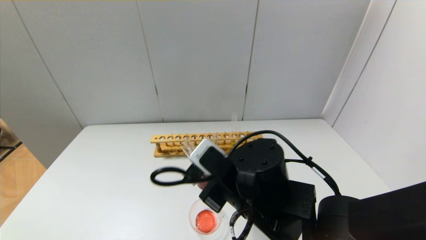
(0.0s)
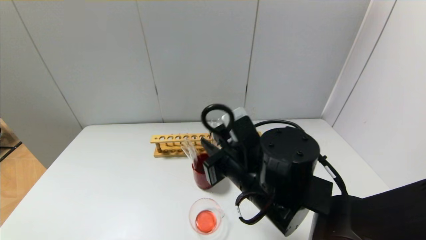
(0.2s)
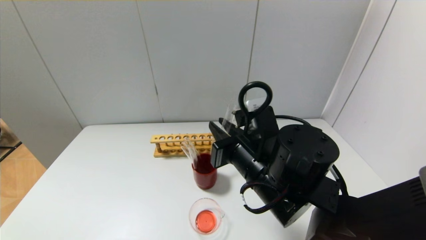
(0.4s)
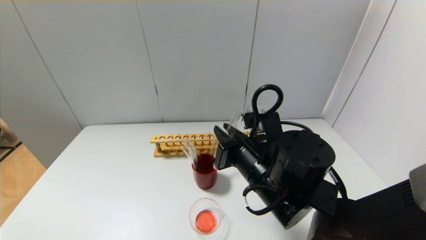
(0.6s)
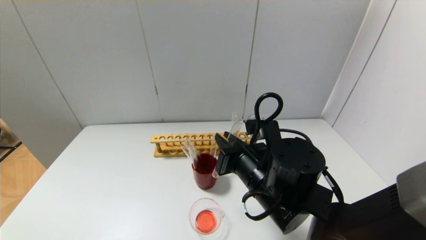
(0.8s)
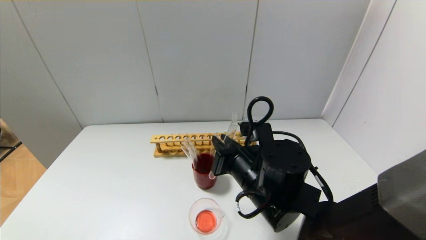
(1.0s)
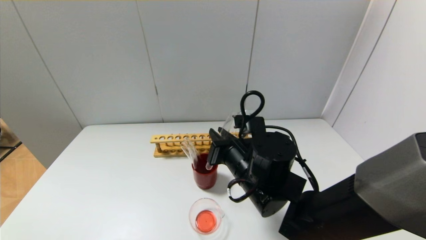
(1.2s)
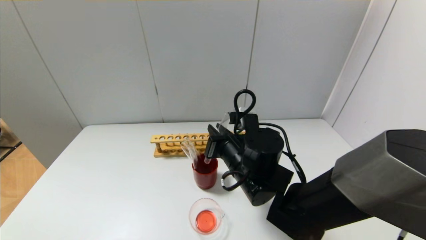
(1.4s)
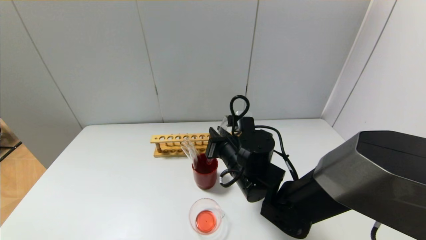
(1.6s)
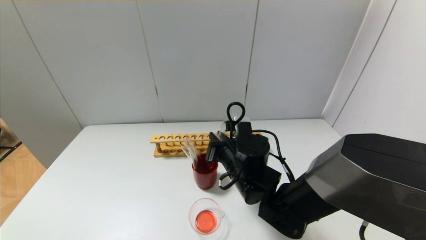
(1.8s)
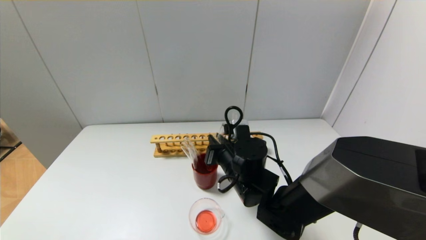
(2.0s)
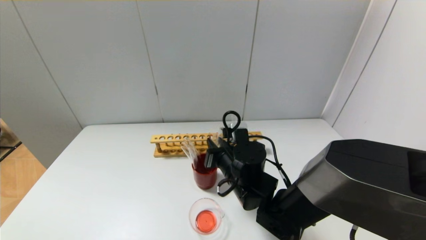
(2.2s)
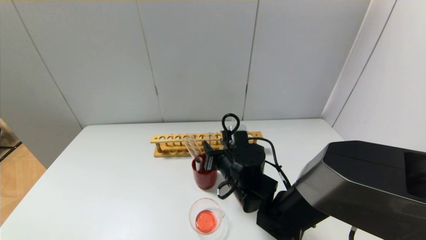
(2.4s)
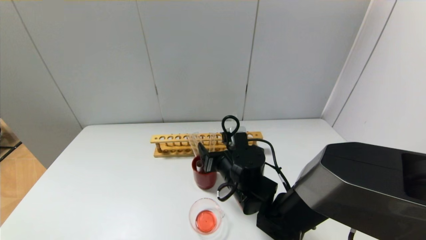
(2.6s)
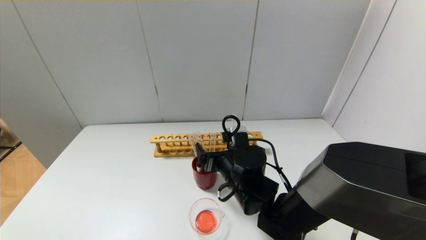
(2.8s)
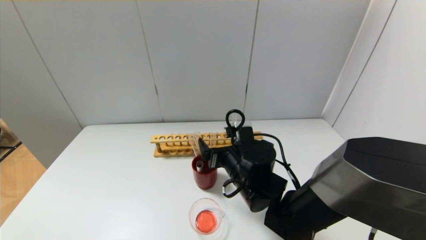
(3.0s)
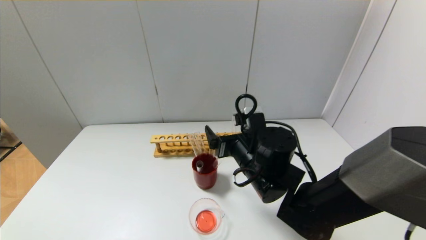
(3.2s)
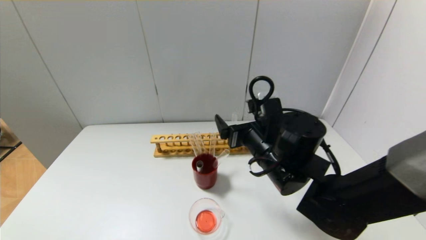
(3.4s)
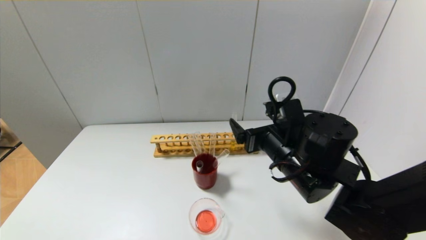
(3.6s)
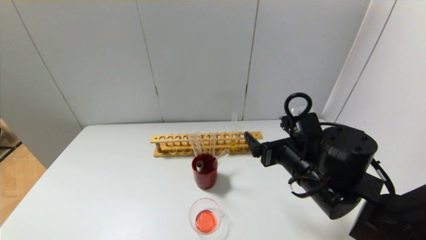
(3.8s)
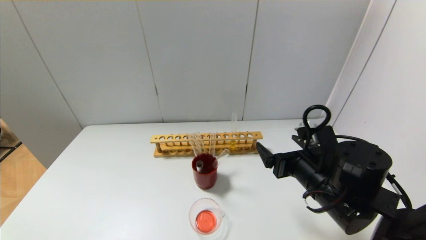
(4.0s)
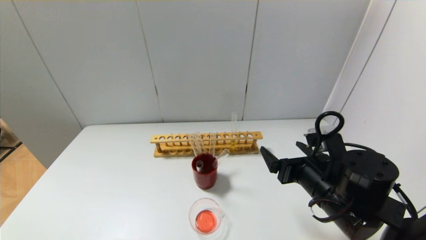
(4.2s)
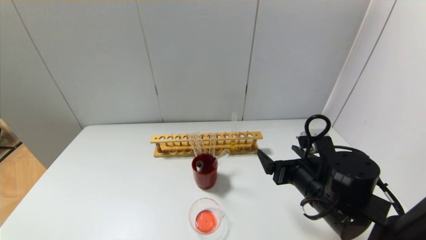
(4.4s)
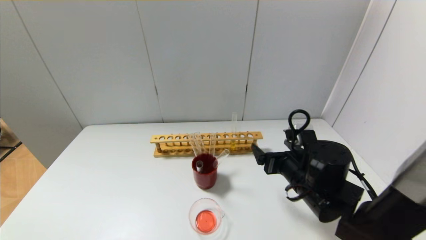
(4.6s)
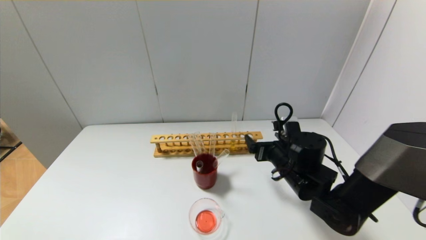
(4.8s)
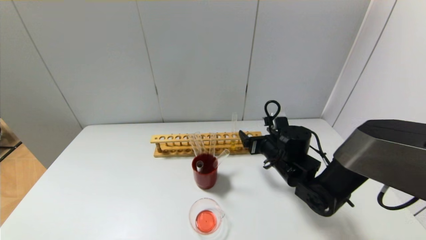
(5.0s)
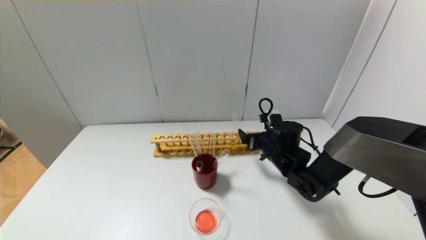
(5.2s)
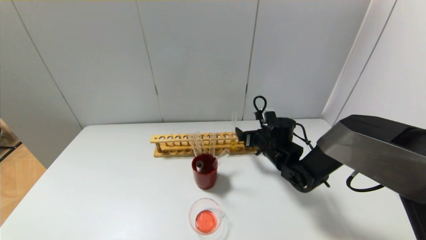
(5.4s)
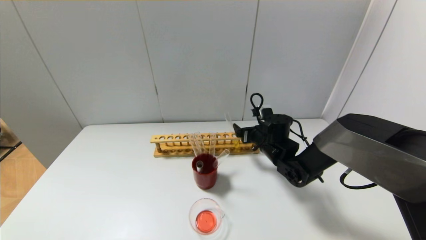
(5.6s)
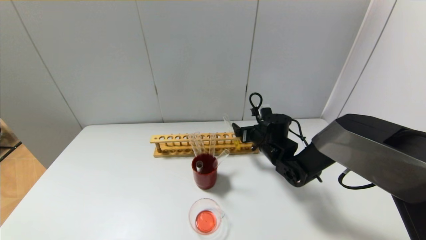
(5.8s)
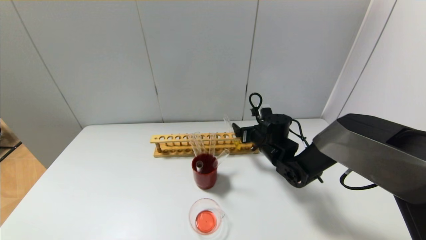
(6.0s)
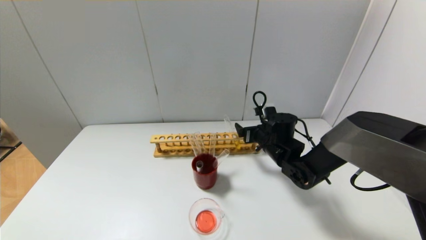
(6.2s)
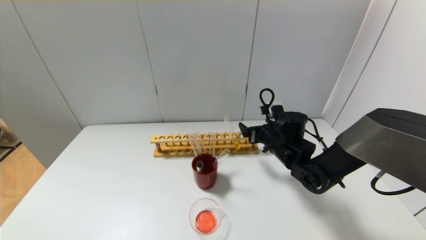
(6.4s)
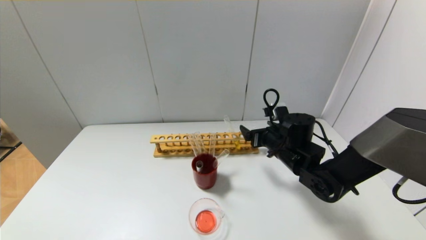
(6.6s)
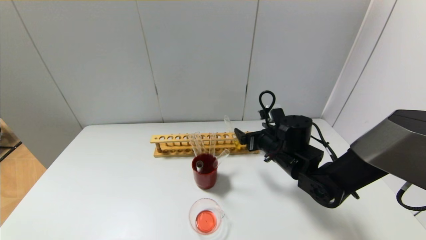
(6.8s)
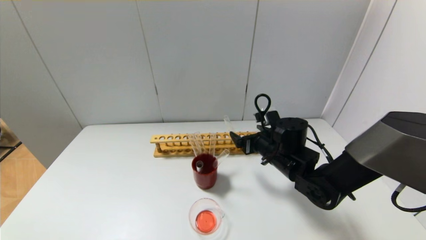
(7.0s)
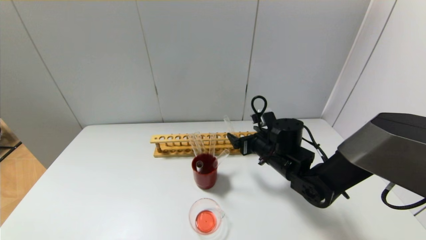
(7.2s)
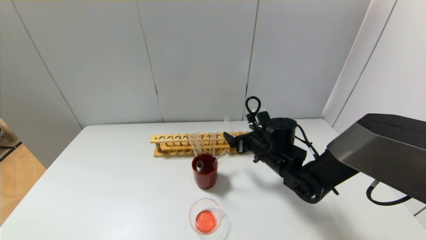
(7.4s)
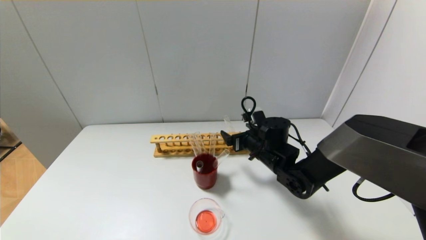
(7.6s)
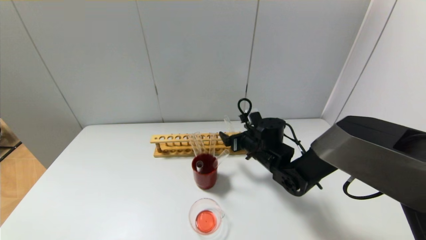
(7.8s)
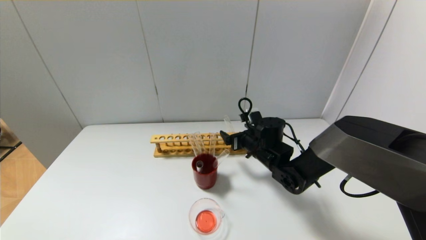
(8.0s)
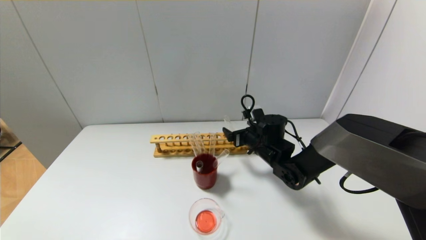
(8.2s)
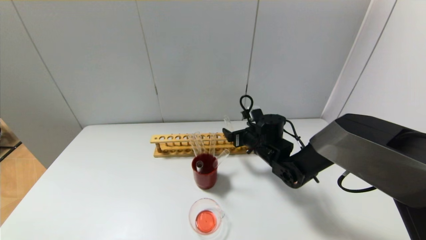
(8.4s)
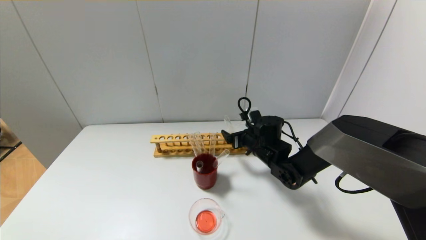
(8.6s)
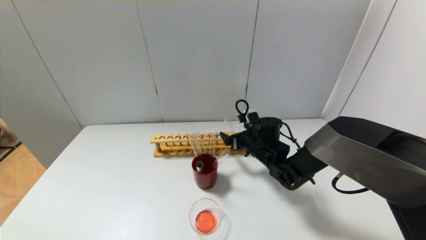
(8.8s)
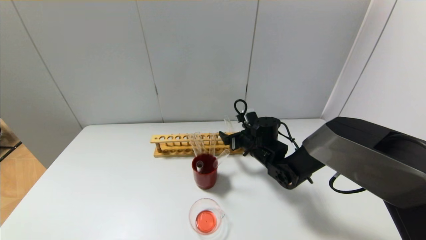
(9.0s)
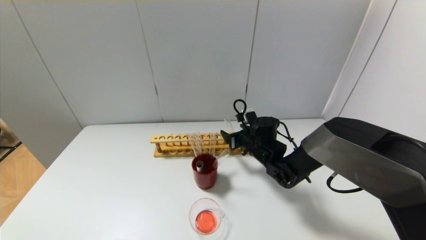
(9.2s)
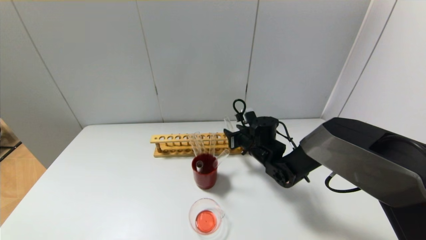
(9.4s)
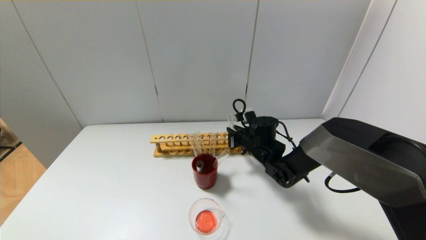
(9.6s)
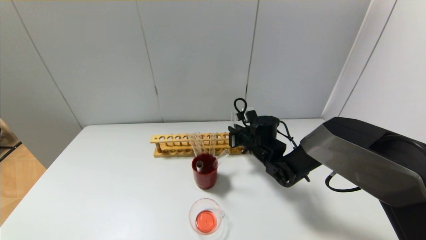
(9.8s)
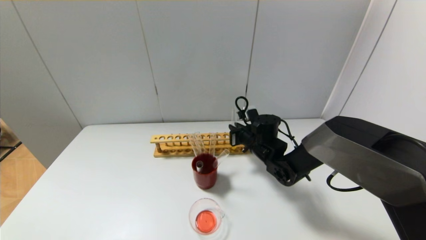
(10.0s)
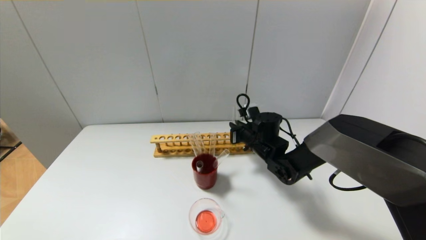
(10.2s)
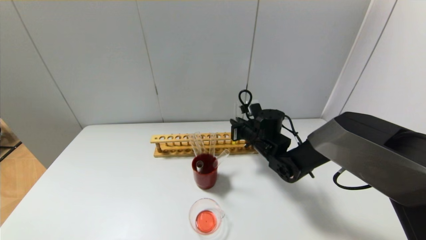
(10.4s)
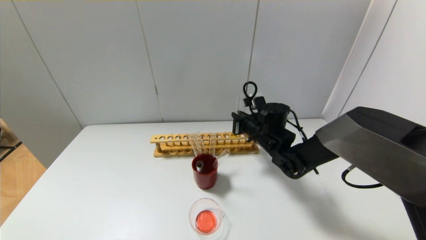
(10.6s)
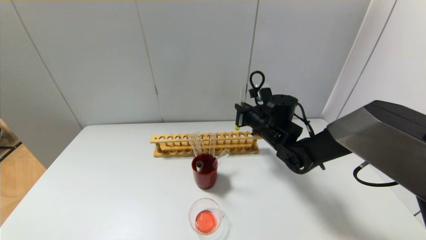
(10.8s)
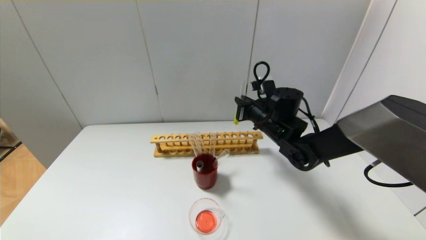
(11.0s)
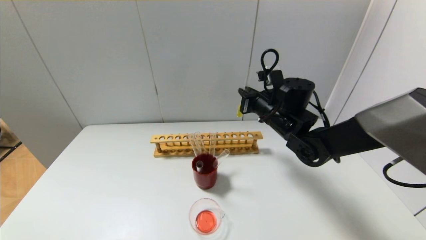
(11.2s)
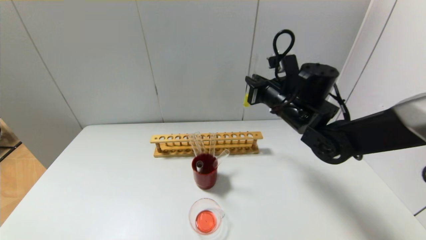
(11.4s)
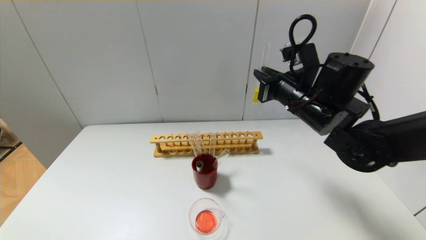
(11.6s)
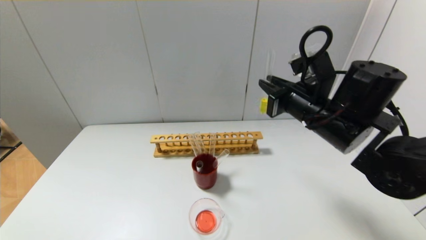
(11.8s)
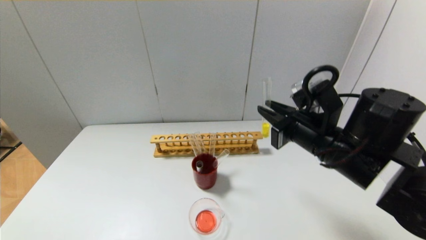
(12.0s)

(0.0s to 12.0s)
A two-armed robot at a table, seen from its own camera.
Step, 0.0s - 2.4s: Place the test tube into the brown cup with the right gripper.
Step, 2.6s - 9.8s: Grasp the yellow reagent with the right gripper.
0.0s - 1.6s: The right gripper goes some 10 cm forward.
1.6s - 3.0s: The right gripper opens.
3.0s - 4.4s: The right gripper heads to the right, covering about 15 cm.
4.4s - 6.0s: The right gripper travels forward by about 20 cm.
7.6s - 9.0s: The grippers stay close to where they were, moving slightly.
9.0s - 10.4s: The right gripper closes up.
10.4s - 12.0s: The right gripper moves backward and upward, approximately 20 cm.

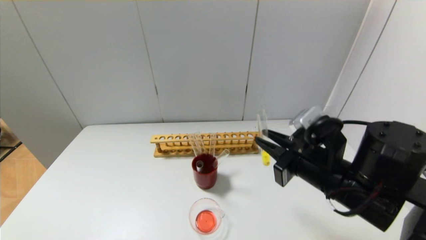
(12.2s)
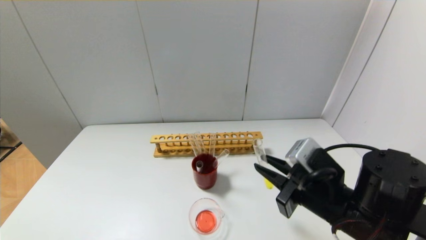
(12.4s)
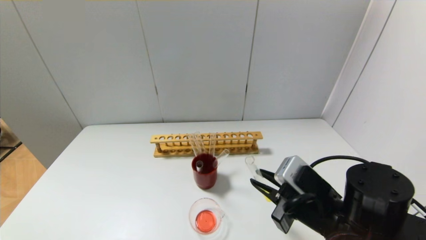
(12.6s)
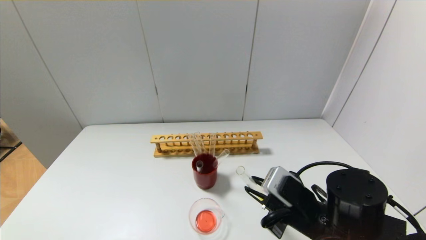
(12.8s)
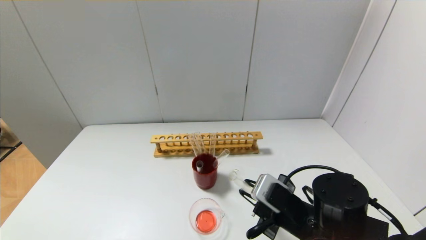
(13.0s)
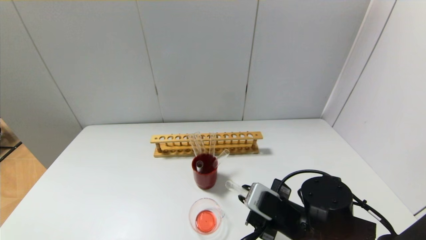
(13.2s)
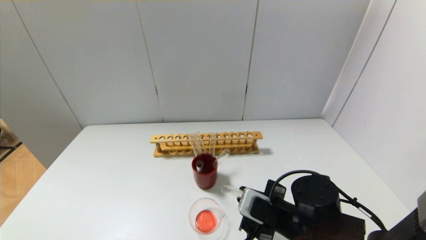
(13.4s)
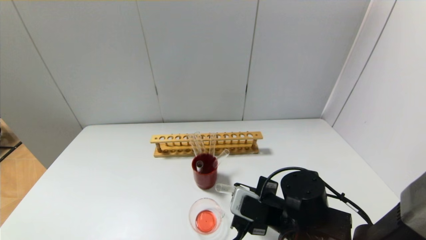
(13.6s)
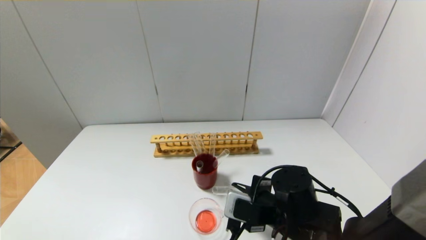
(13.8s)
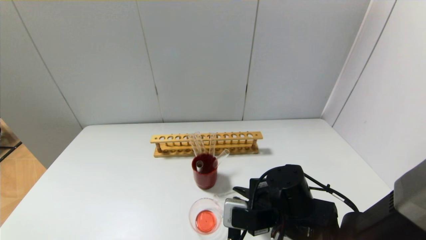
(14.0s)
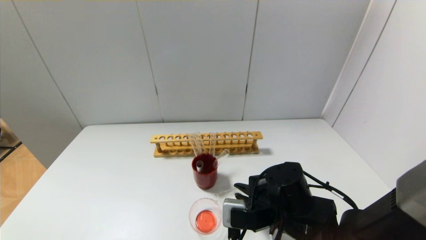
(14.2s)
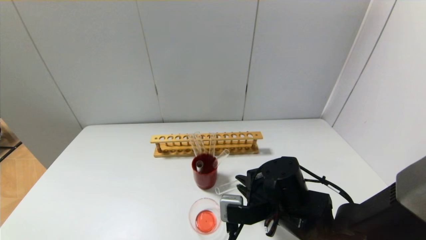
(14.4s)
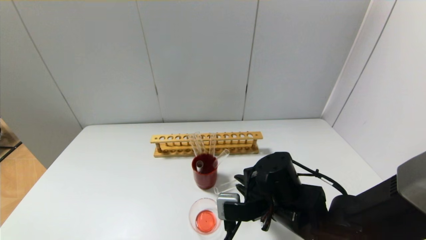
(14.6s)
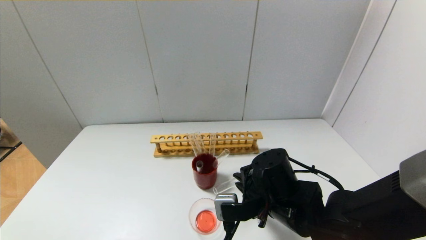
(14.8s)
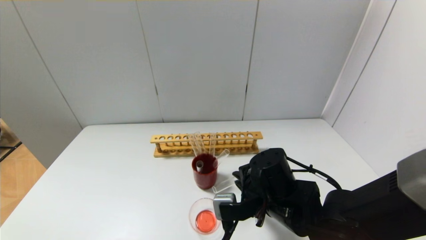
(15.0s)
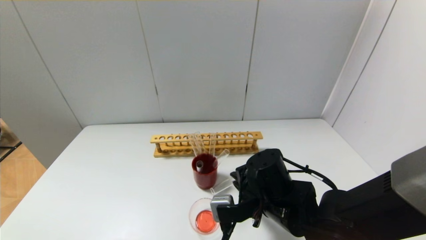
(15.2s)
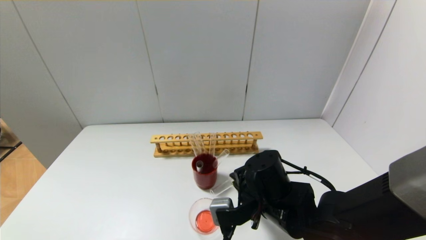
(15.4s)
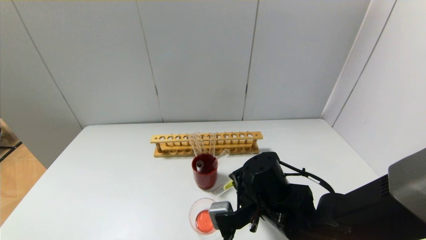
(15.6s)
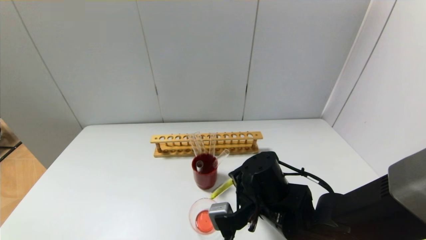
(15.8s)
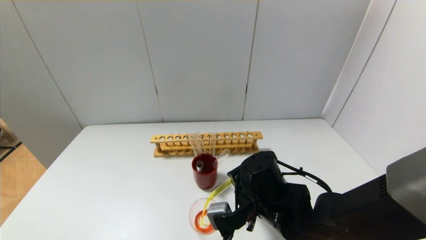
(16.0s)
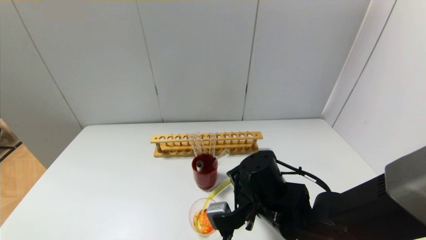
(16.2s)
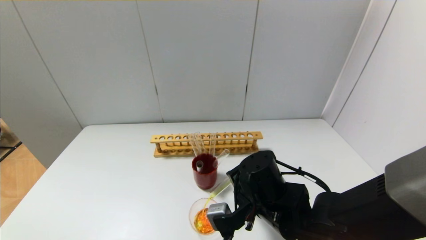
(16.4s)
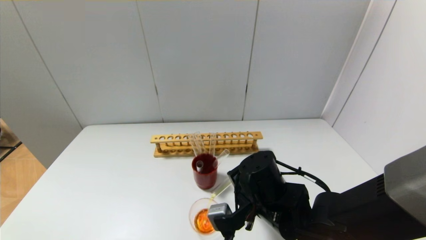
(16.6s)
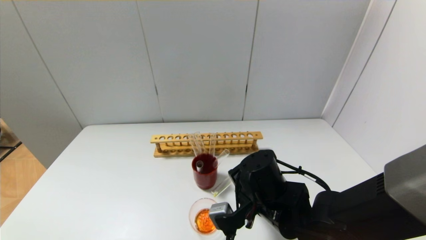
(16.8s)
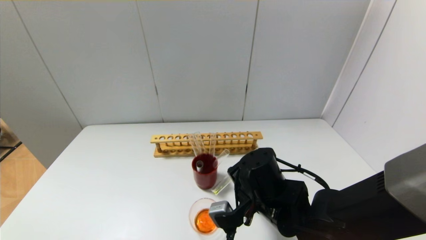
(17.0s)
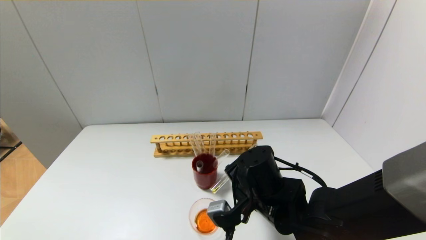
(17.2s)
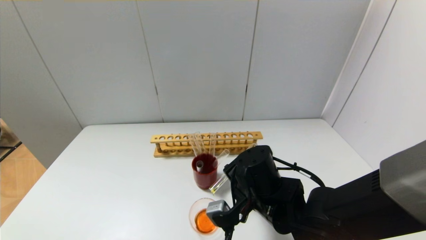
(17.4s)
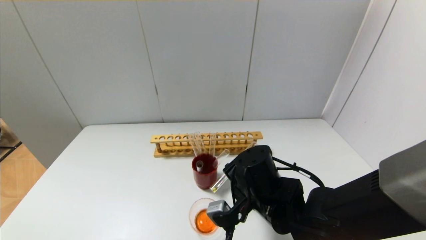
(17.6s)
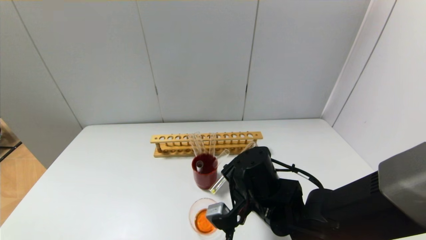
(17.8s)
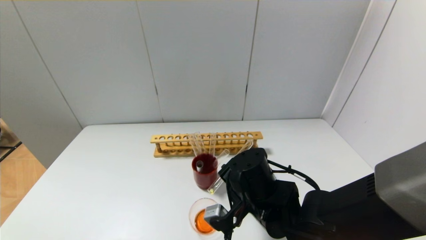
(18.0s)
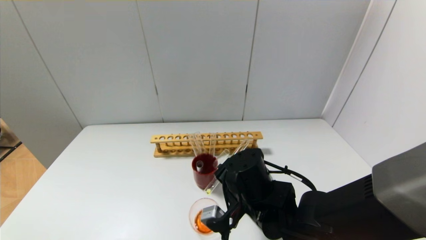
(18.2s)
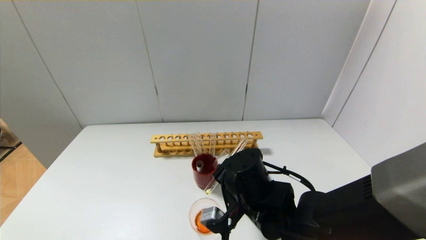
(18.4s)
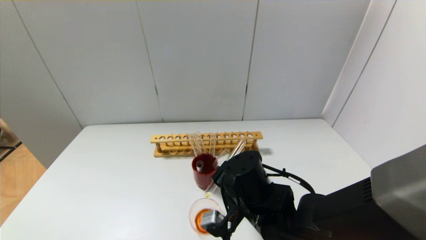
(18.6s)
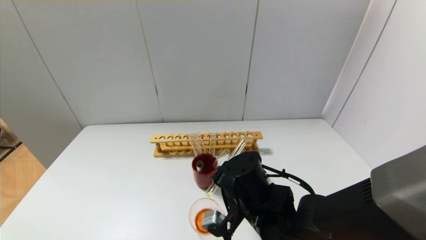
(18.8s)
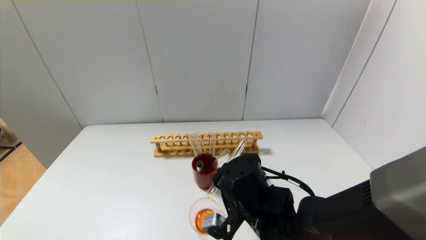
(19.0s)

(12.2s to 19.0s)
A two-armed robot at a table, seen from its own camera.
12.2s - 13.6s: The right gripper goes roughly 10 cm downward.
15.0s - 16.2s: The grippers stay close to where they were, moving slightly.
16.2s - 17.6s: The grippers stay close to where they were, moving slightly.
17.6s - 19.0s: There are only small adjustments of the grippers.
